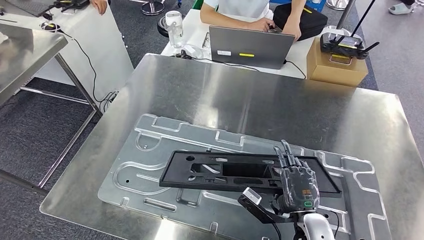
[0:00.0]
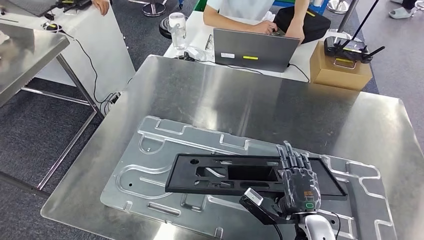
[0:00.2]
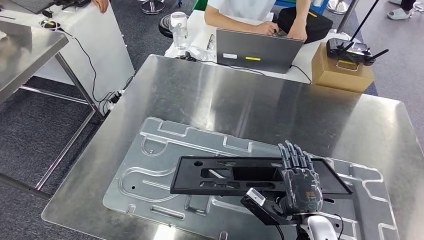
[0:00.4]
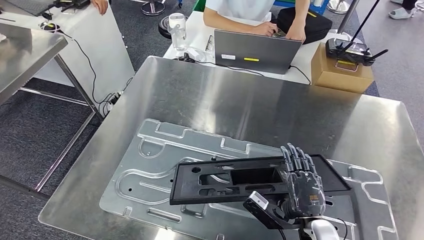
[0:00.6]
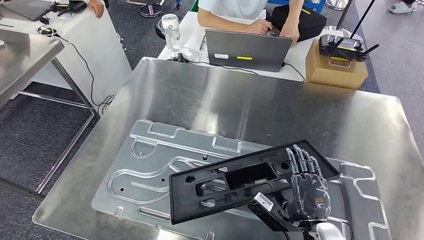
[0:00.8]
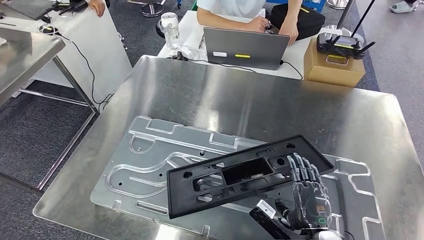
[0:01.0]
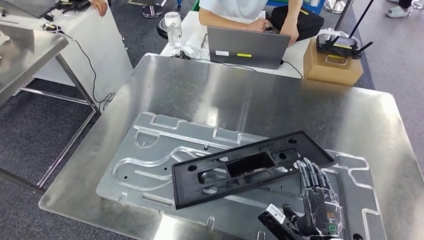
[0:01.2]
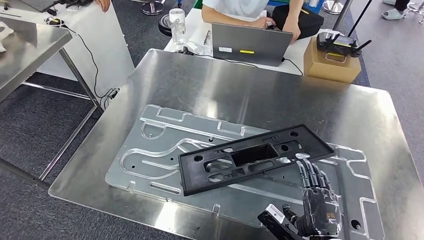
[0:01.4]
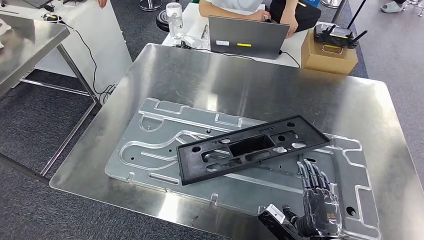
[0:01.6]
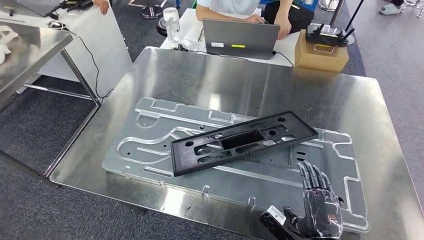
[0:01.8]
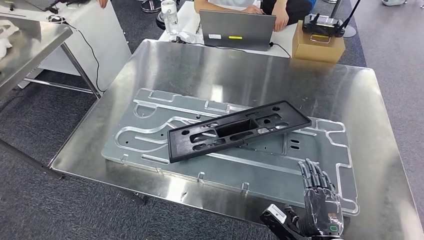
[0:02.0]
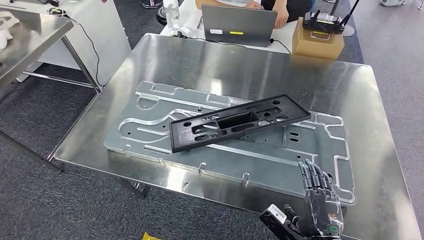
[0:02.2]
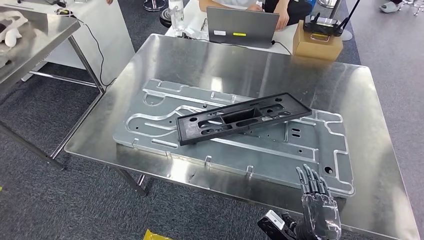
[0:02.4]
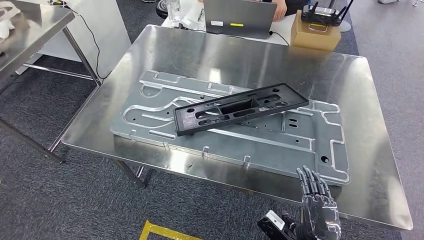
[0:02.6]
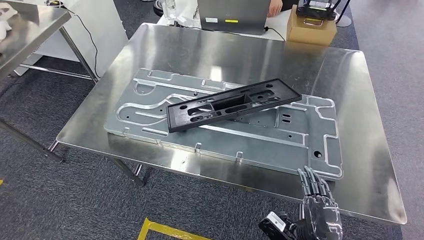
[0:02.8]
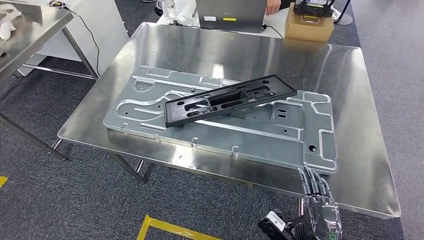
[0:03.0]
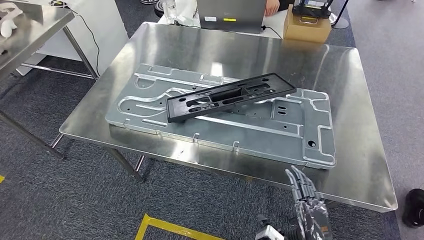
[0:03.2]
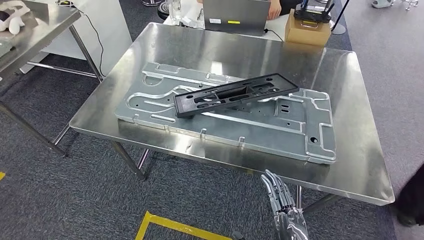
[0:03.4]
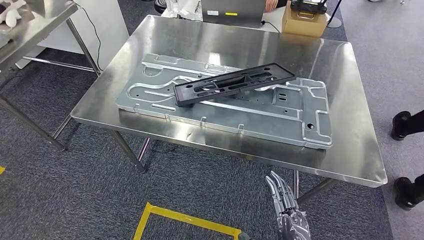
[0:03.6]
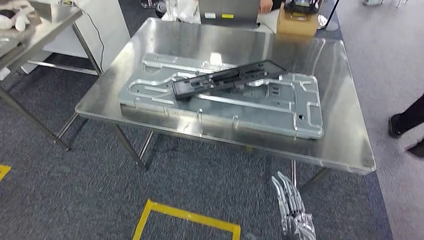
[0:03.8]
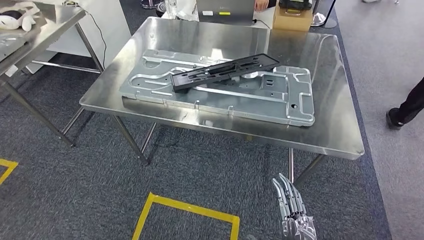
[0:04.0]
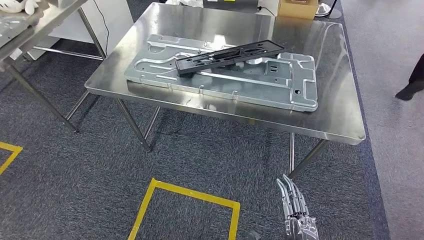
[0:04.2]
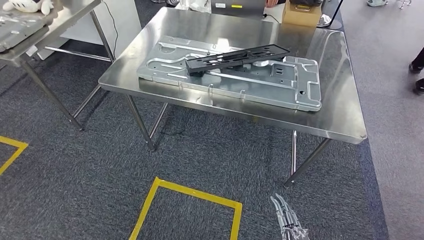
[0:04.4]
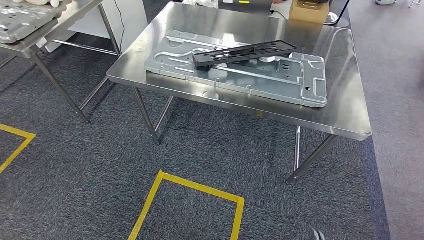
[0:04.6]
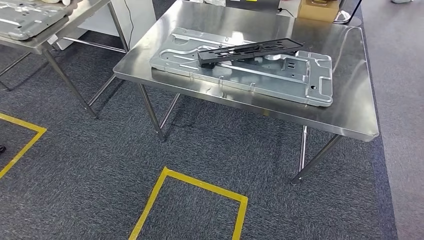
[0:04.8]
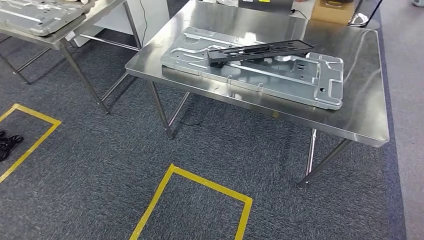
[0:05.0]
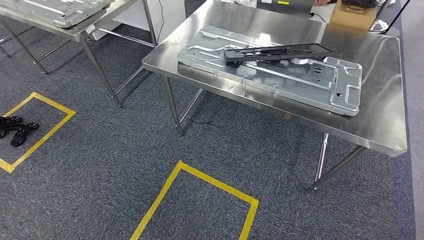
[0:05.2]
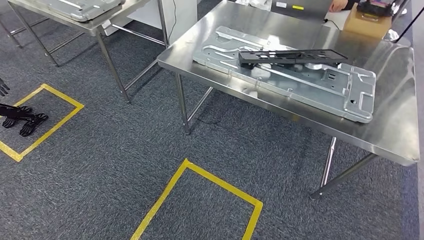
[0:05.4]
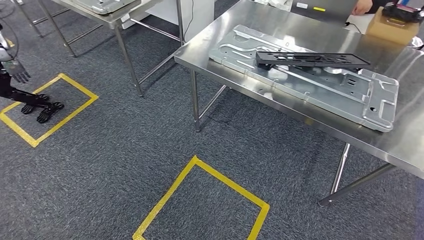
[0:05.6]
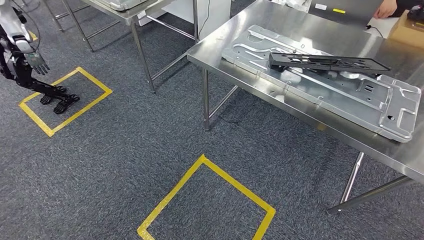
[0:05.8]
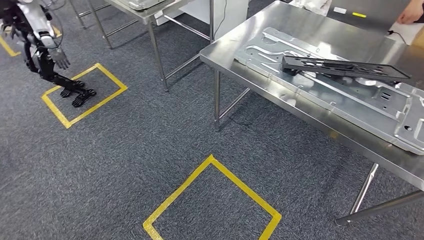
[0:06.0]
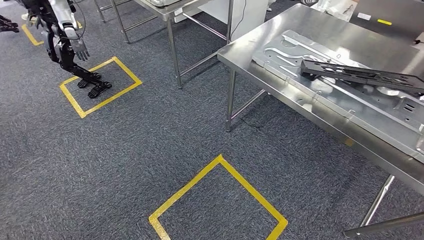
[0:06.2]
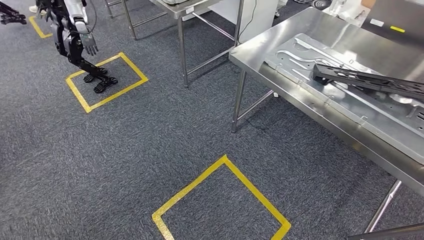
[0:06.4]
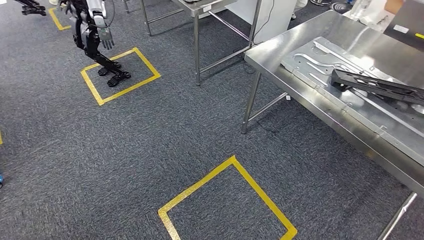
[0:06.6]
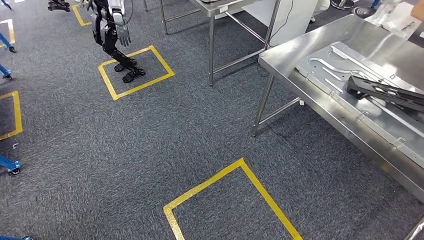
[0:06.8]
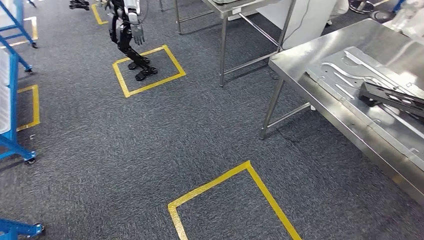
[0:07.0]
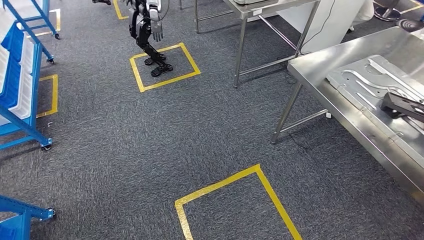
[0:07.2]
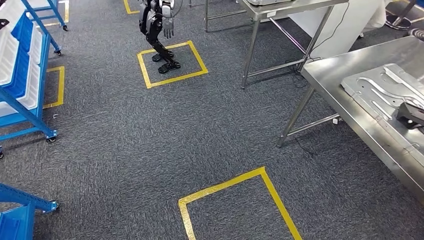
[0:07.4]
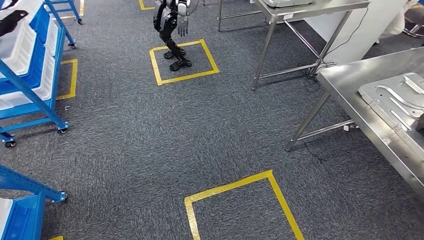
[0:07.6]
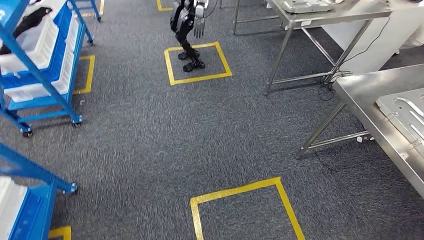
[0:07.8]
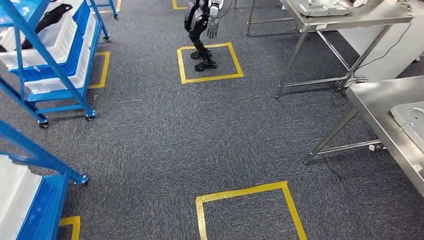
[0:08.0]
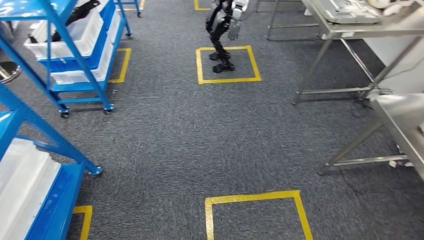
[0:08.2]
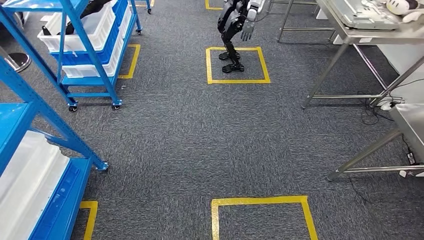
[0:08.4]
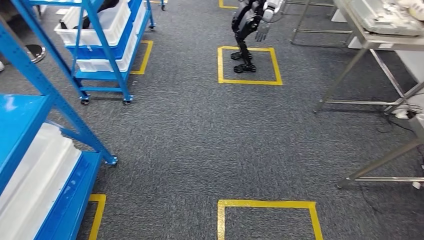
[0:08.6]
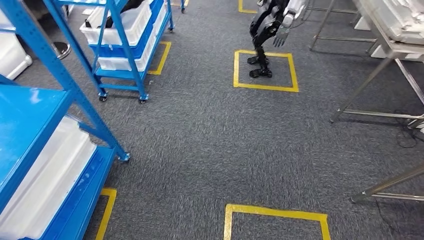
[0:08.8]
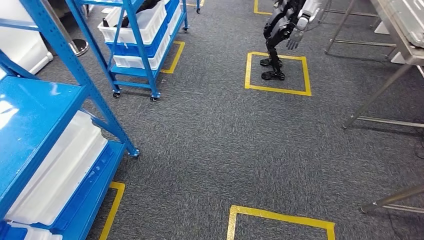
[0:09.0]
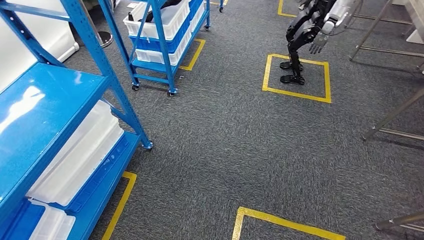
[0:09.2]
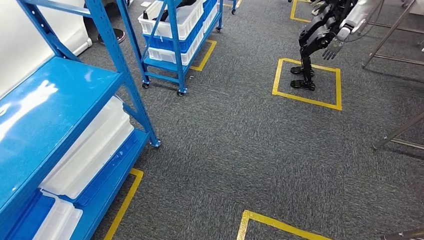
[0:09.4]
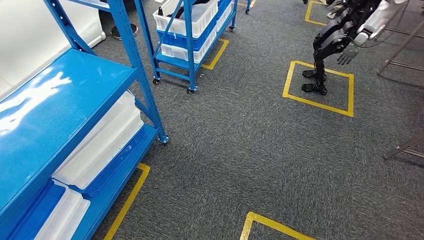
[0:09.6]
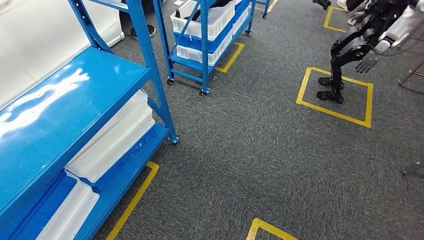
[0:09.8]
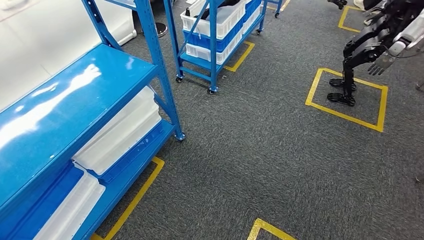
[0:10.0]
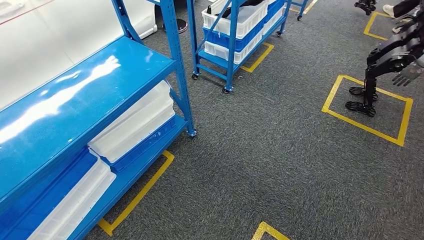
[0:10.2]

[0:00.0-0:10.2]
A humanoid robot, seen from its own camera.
Step, 0:00.0 to 0:02.8: Insert the large material into the corresponding slot on the workbench.

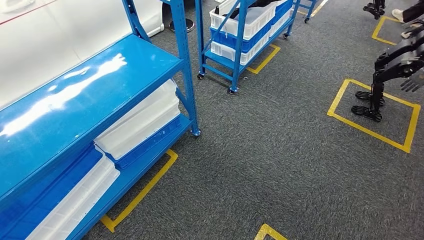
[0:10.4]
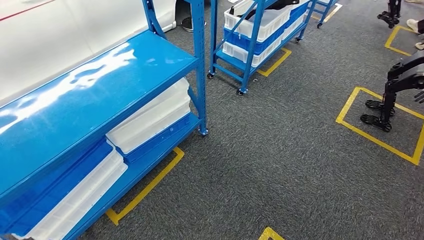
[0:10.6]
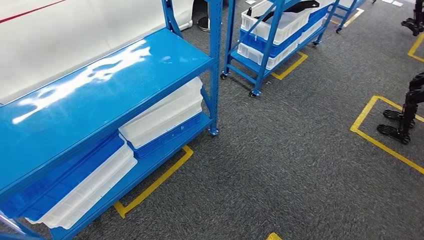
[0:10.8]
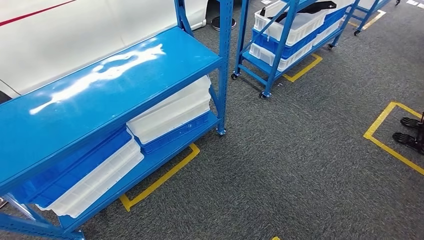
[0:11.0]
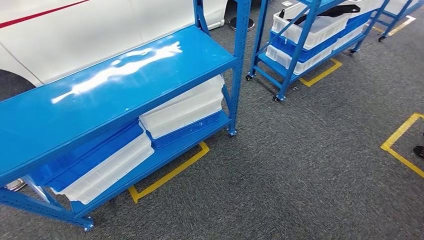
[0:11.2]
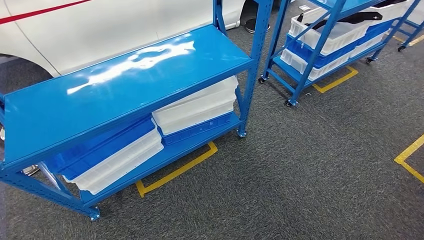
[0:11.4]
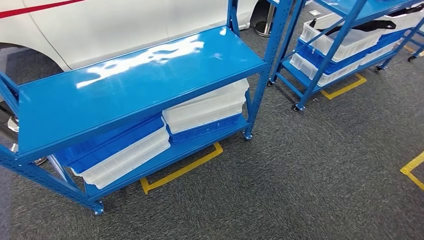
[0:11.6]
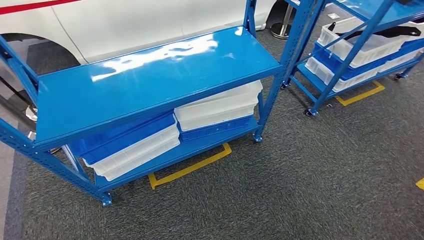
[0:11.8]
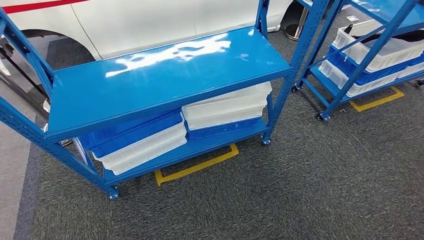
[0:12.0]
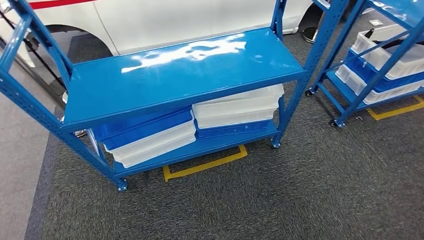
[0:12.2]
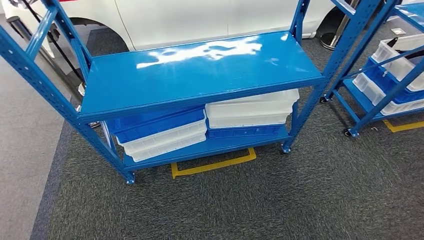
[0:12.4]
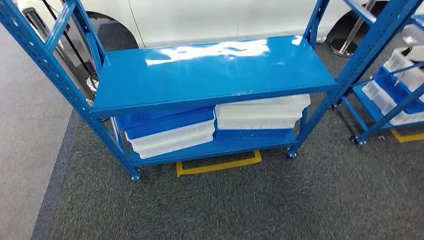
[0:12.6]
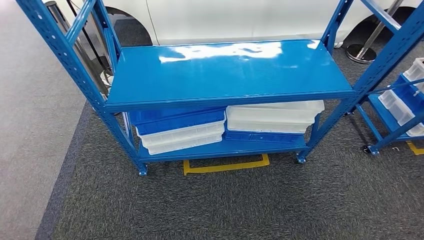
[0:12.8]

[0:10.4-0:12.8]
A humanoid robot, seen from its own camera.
Step, 0:10.4 to 0:12.8: Move to the initial position of the shelf.
